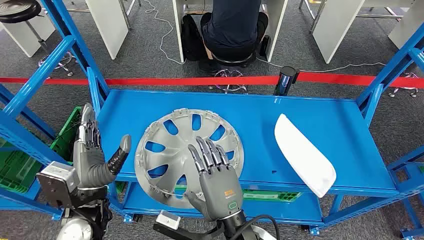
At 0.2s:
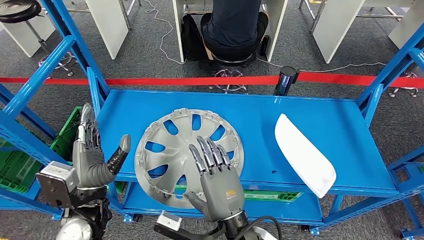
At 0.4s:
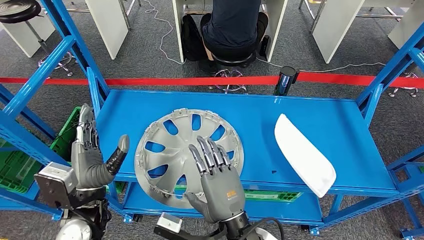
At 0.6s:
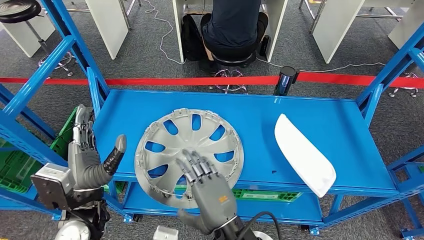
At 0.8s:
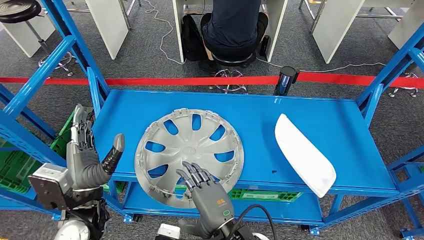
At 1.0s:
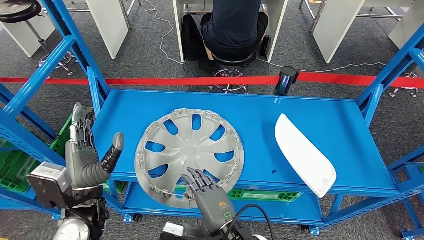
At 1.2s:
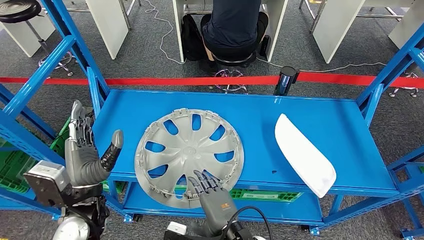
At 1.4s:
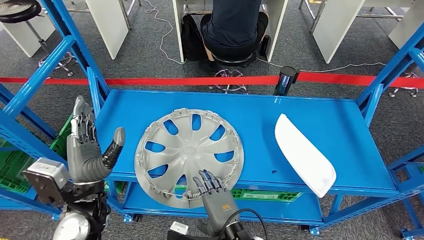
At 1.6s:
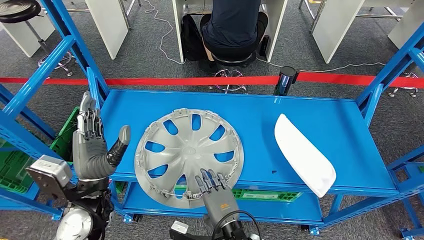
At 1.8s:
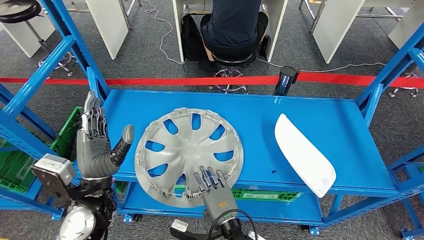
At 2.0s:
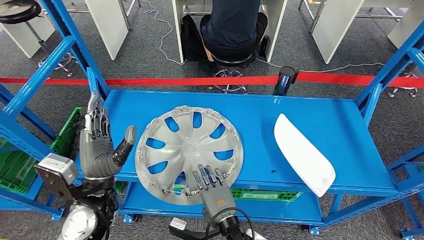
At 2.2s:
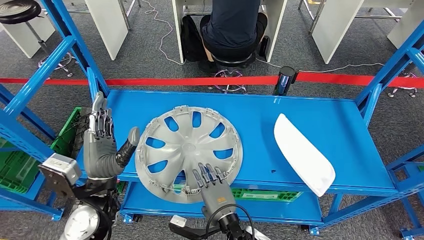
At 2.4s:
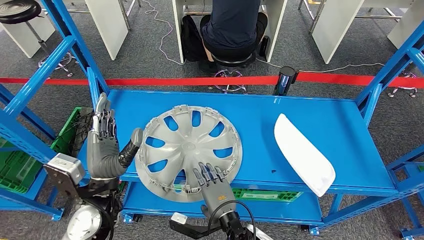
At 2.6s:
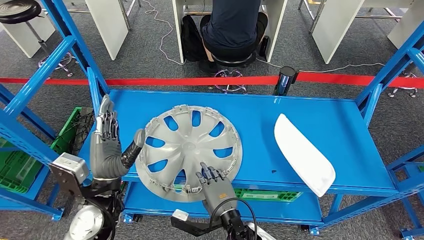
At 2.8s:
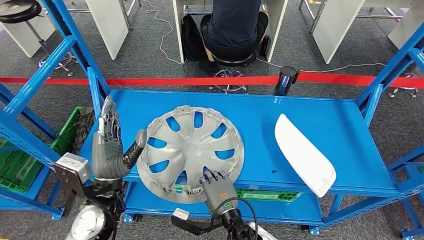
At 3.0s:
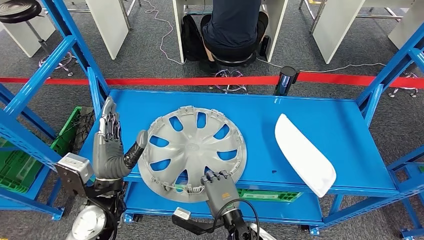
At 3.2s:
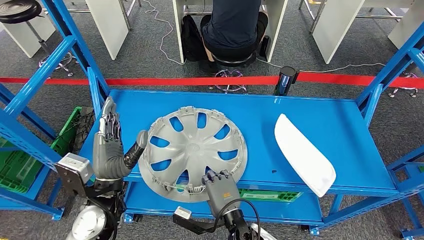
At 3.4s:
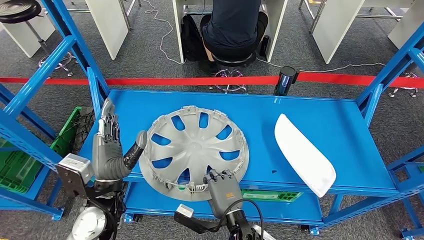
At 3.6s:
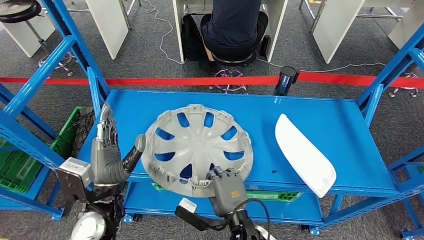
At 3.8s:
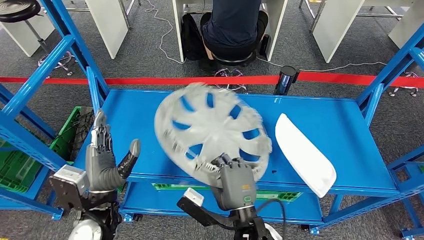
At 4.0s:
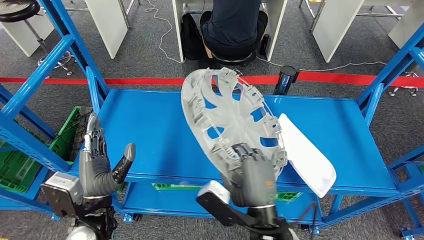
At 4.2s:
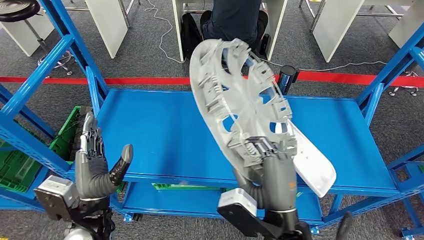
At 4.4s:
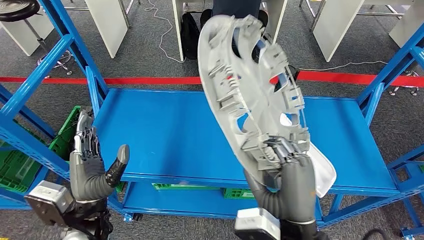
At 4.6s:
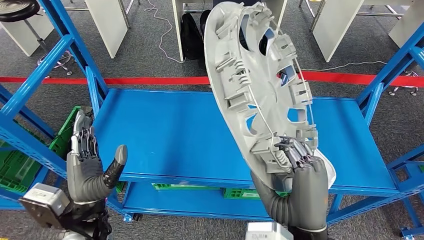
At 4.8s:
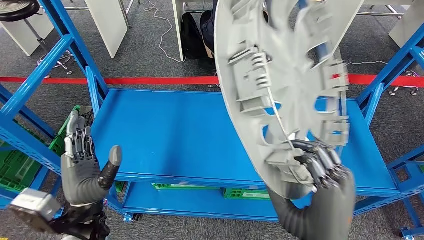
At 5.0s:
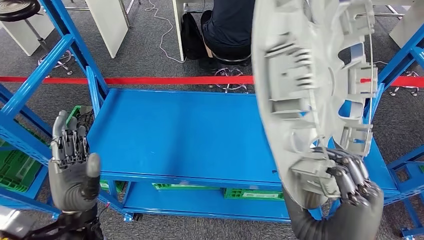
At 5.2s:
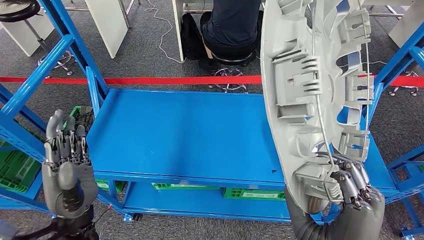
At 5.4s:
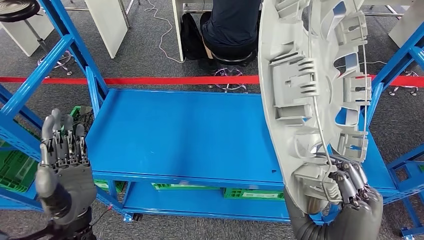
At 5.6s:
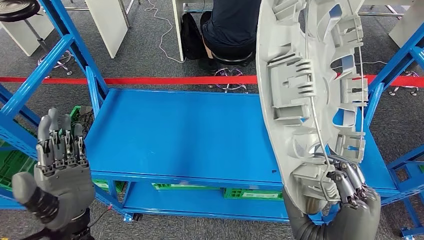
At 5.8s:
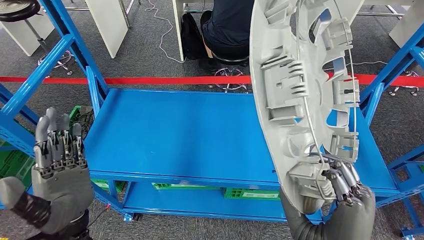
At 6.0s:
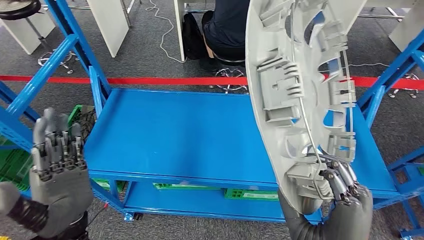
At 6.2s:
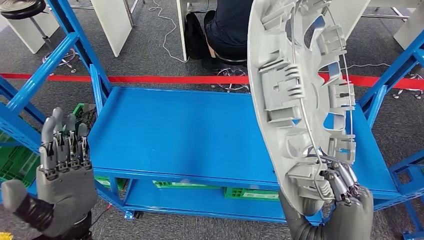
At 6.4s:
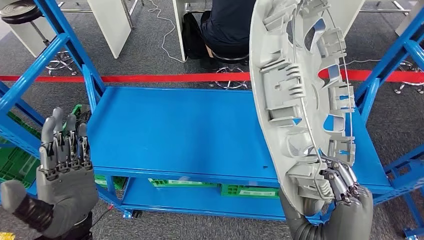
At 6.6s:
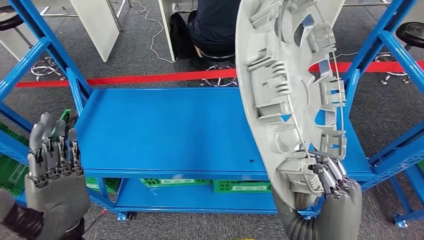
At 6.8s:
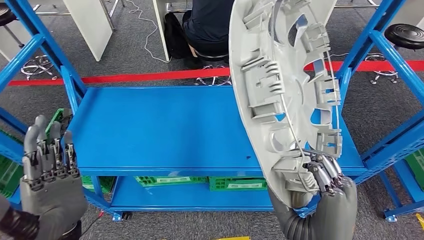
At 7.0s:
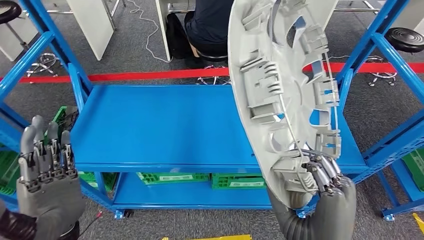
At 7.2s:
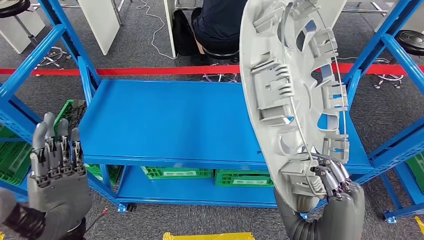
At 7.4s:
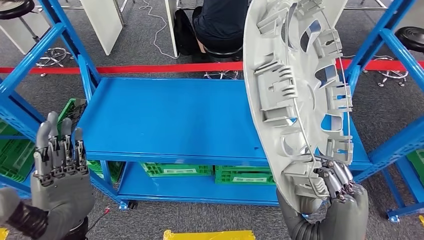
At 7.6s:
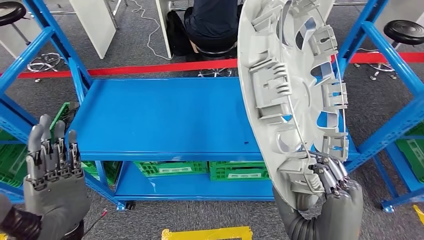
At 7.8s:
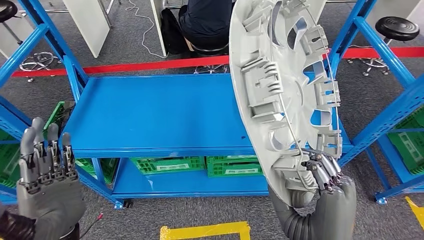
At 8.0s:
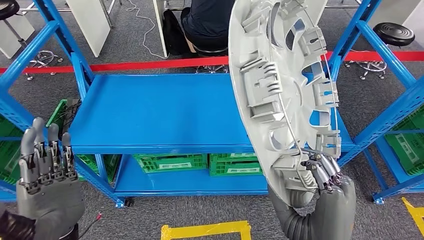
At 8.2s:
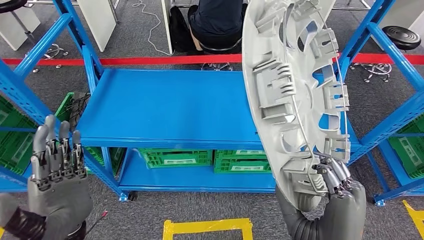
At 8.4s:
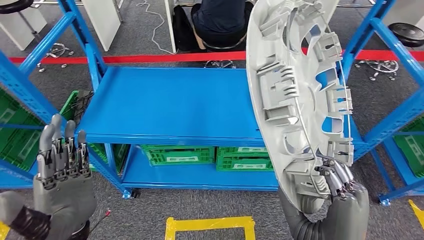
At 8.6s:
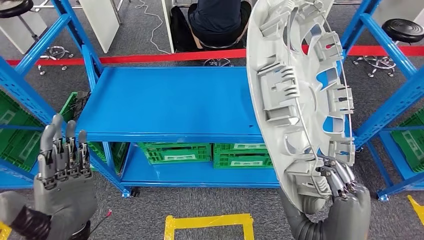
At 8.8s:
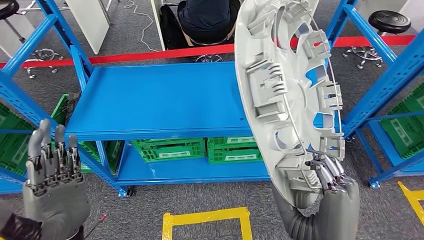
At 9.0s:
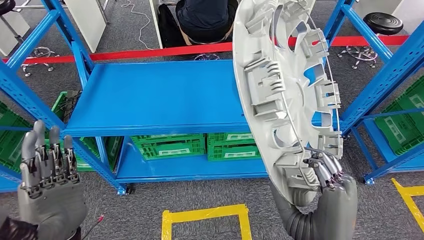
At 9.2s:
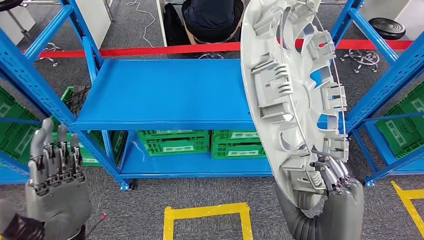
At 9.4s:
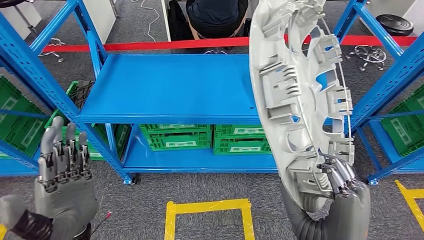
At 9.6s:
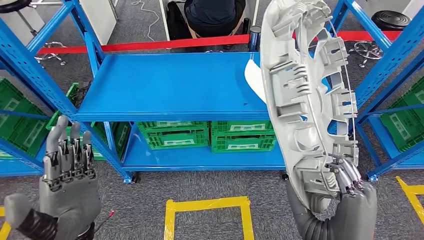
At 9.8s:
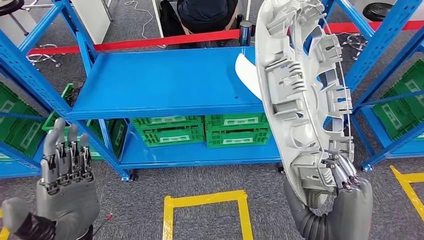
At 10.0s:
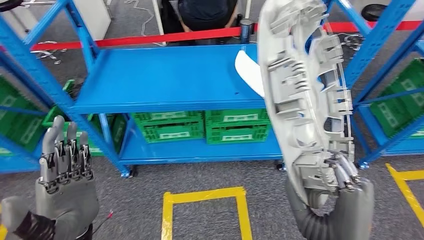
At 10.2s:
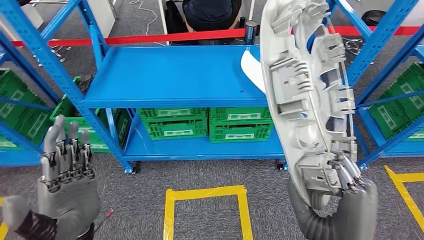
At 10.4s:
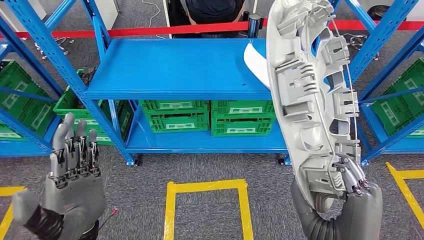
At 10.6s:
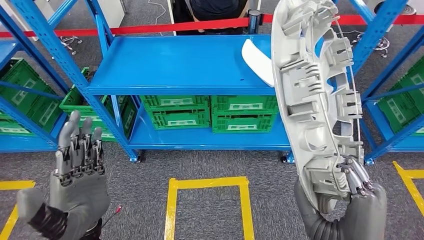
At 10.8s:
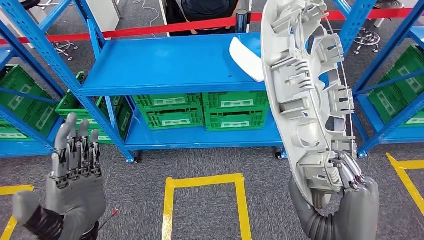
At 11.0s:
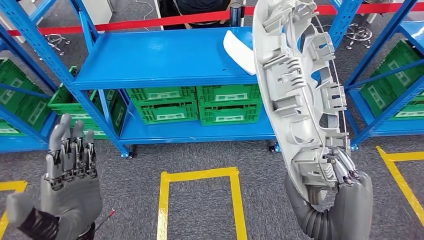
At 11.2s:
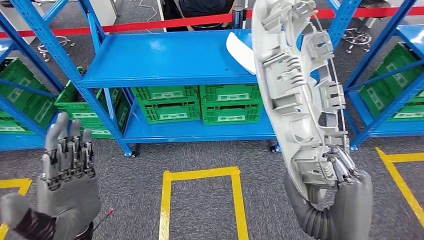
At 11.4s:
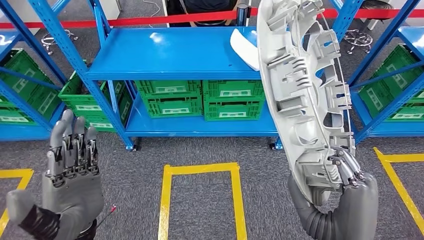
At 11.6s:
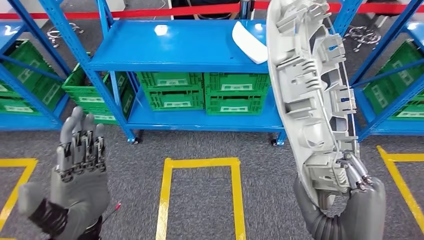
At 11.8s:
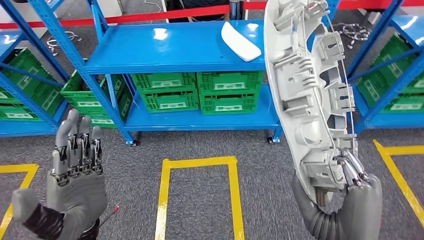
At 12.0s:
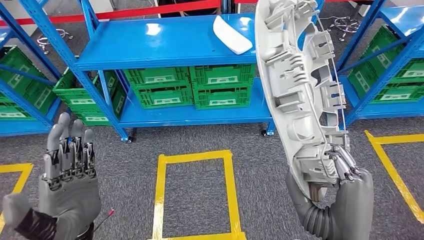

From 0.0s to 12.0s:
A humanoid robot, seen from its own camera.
Step, from 0.0s to 6.4s: Pick up the small component from the shelf.
From 1.6s to 3.0s: The hands move only a little.

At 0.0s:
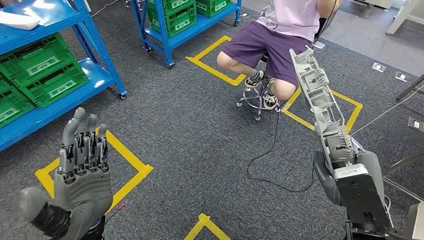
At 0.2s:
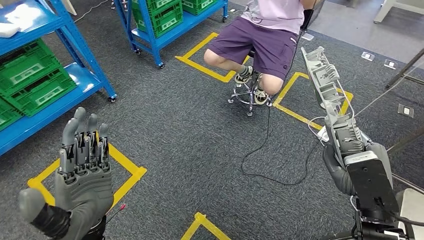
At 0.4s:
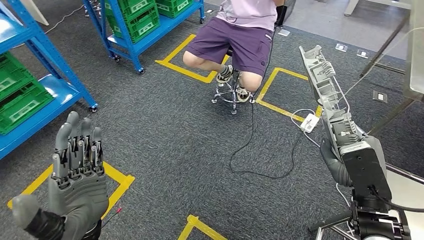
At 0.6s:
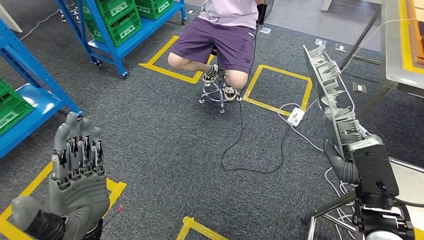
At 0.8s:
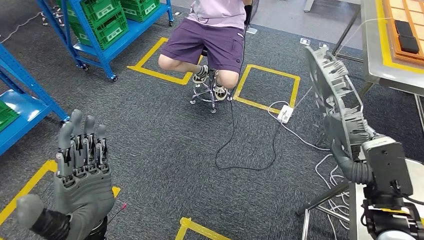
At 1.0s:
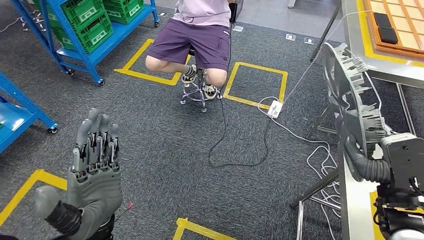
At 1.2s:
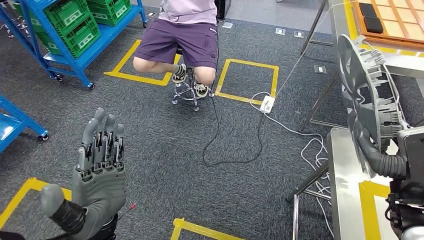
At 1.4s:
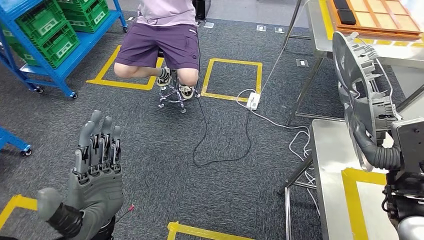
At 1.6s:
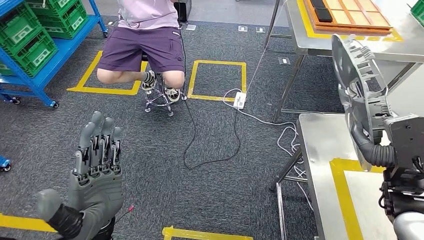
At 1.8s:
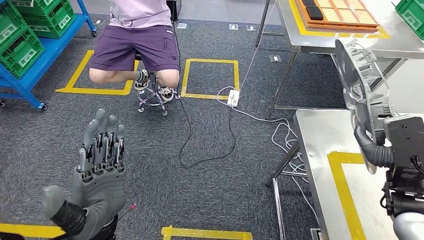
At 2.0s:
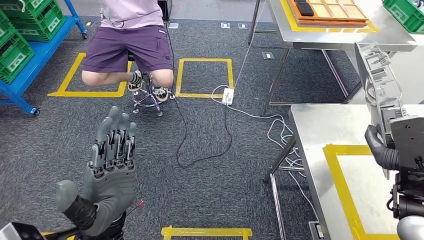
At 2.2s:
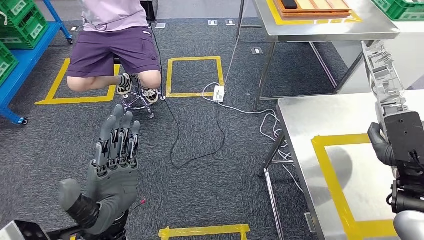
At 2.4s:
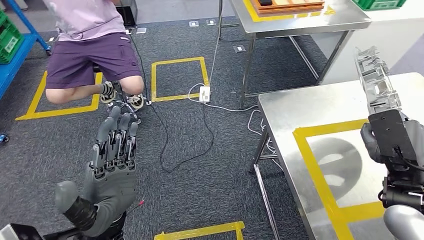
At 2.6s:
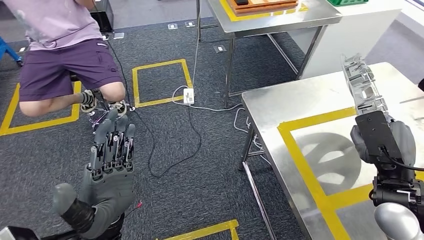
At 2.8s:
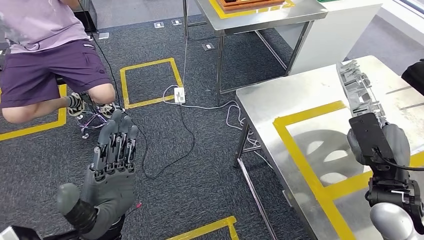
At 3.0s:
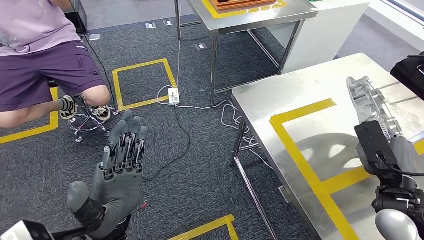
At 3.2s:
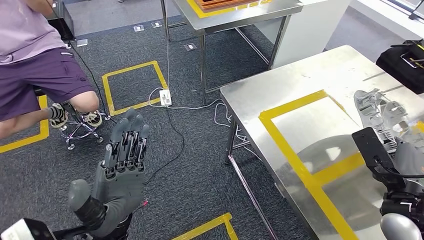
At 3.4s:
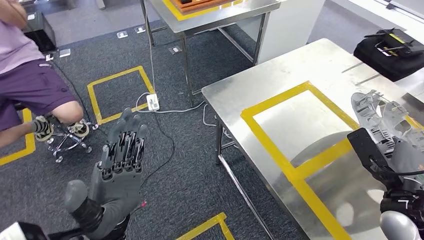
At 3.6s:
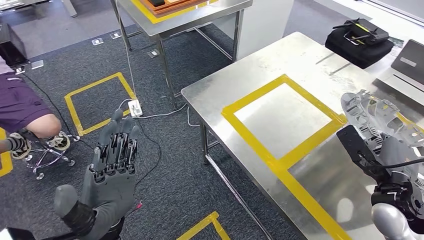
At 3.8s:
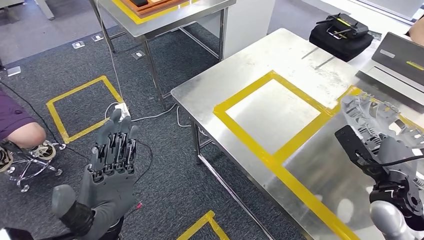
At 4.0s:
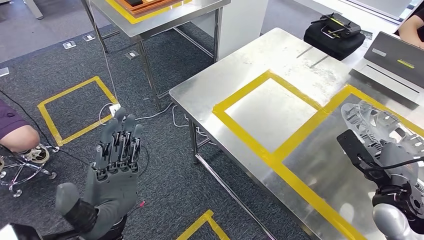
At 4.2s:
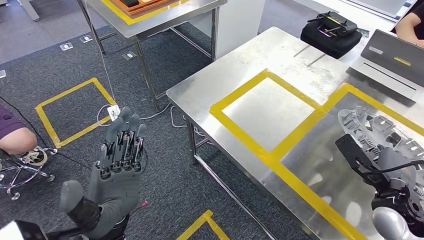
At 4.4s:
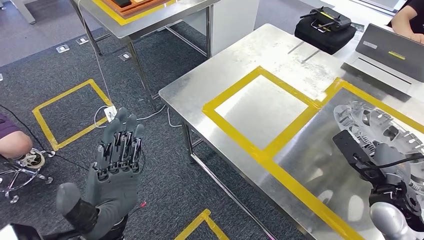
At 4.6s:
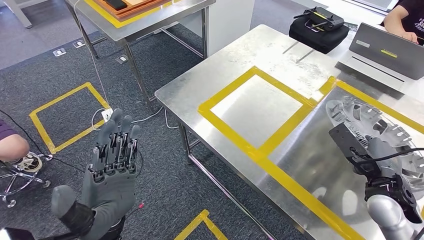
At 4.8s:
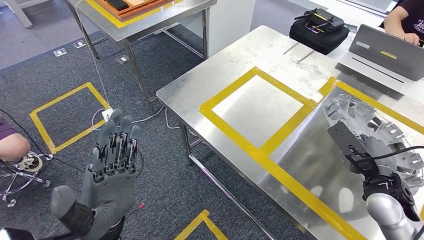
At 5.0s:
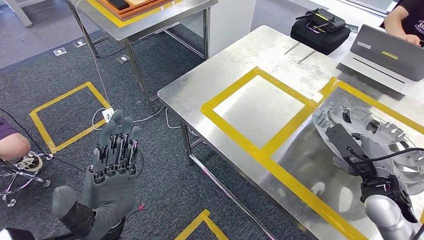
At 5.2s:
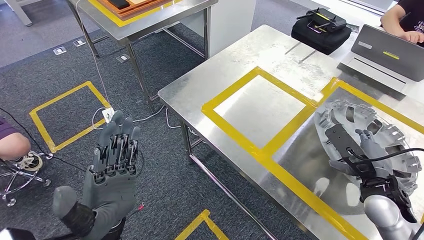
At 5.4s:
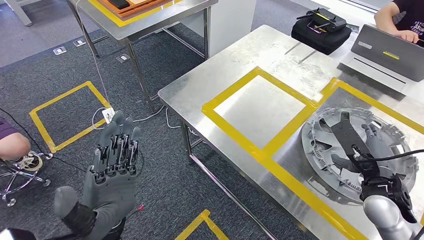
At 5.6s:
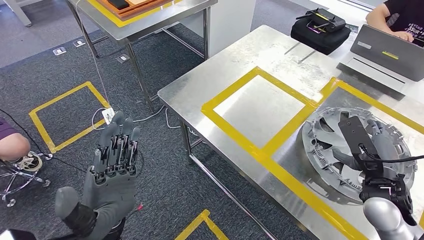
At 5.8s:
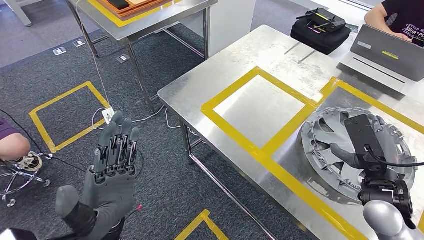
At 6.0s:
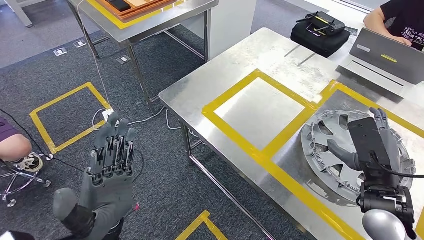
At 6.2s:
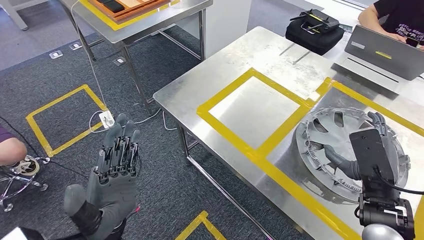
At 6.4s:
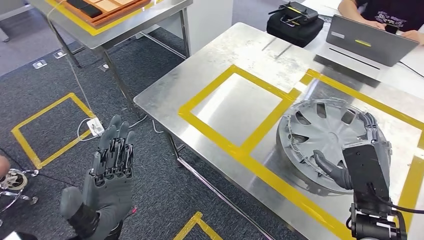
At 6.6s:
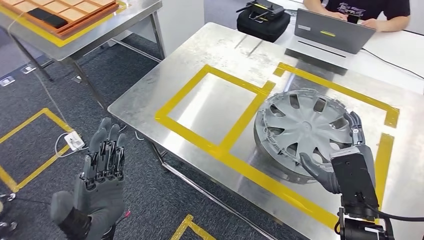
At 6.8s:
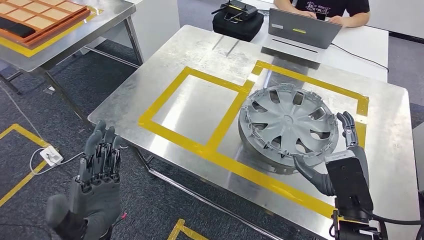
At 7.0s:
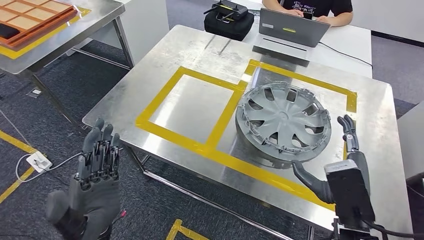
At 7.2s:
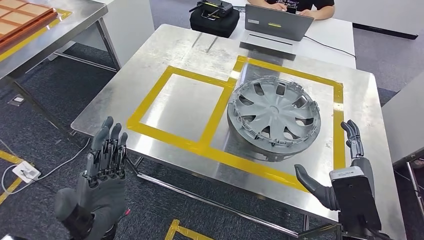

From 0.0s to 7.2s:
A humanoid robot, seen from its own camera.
Step, from 0.0s to 2.2s: Move the small component to the workbench.
